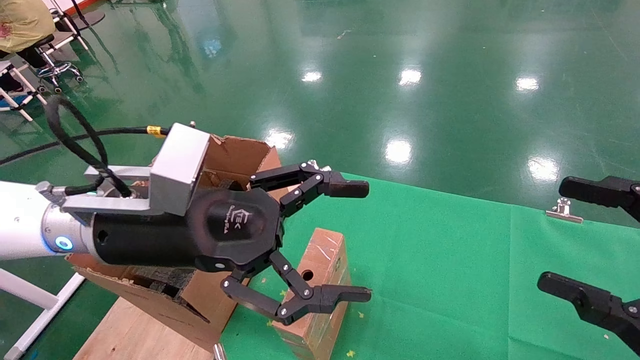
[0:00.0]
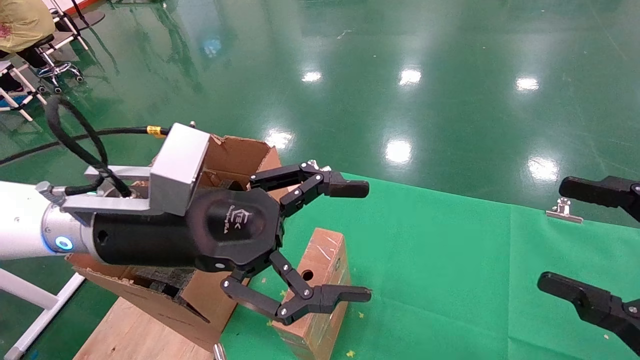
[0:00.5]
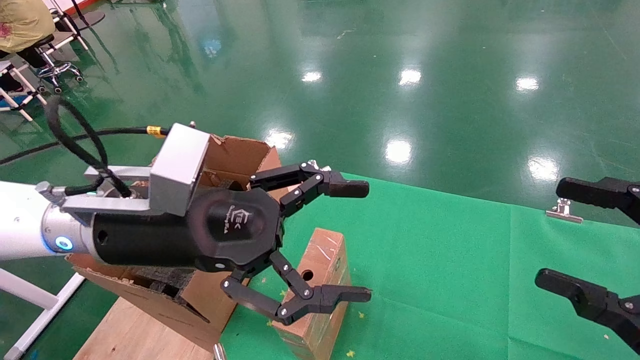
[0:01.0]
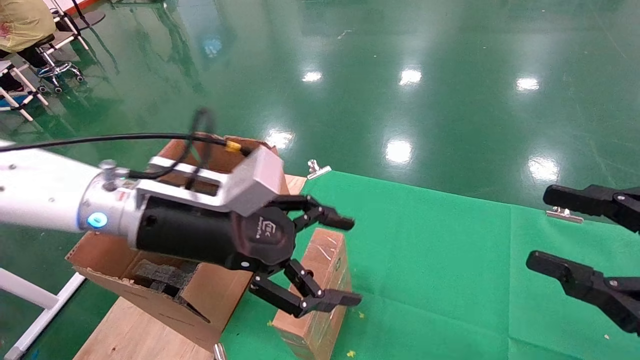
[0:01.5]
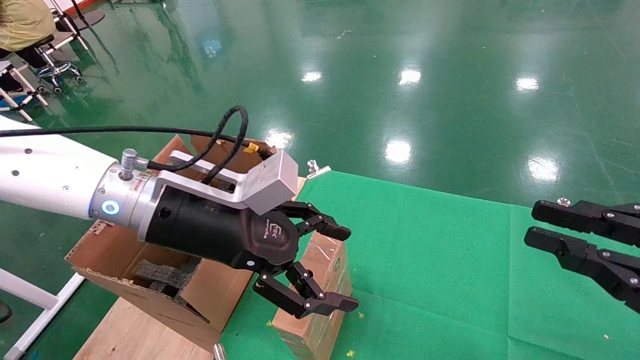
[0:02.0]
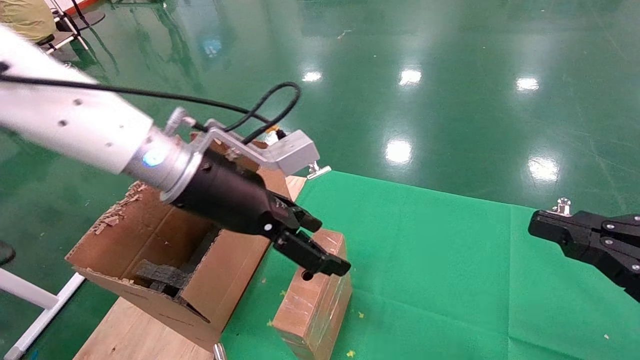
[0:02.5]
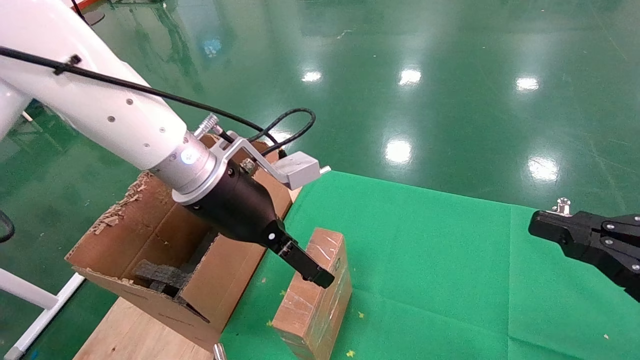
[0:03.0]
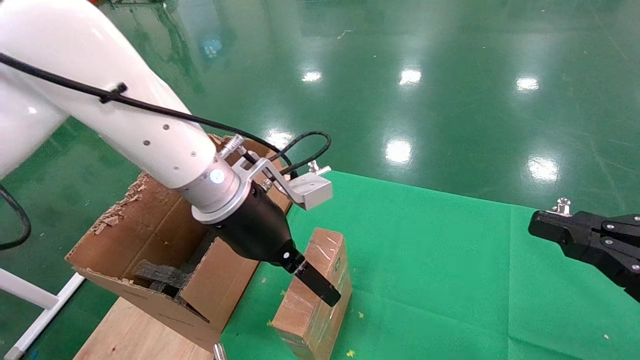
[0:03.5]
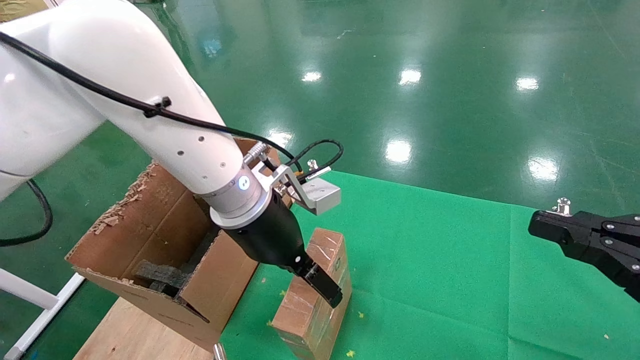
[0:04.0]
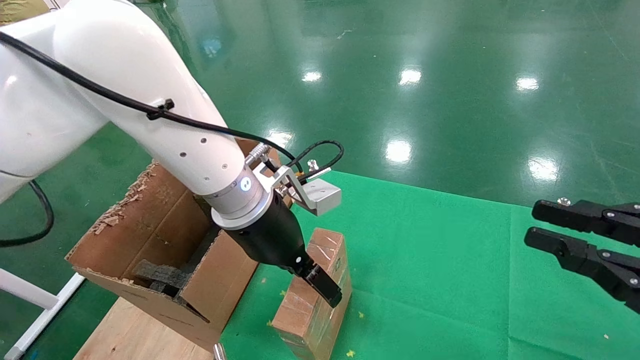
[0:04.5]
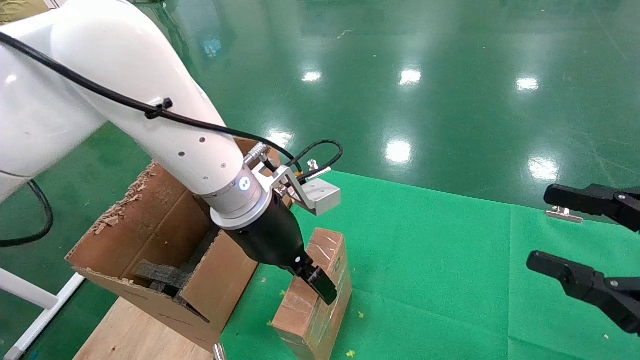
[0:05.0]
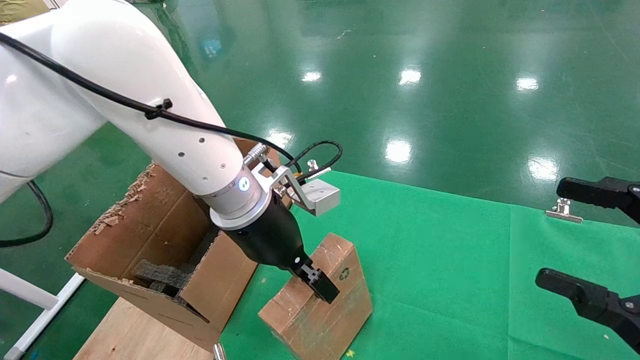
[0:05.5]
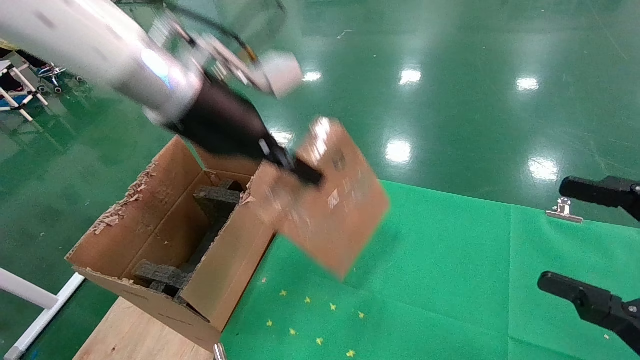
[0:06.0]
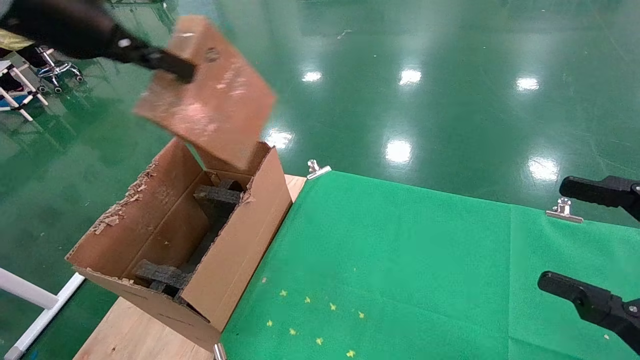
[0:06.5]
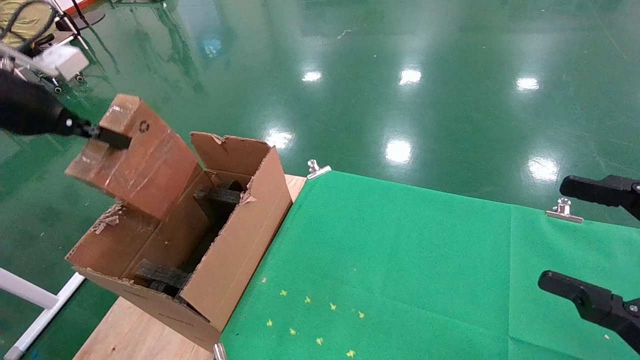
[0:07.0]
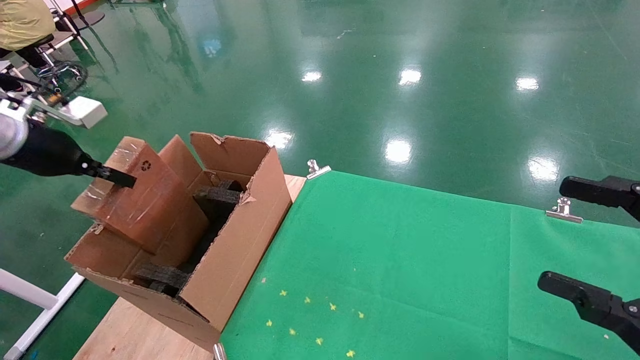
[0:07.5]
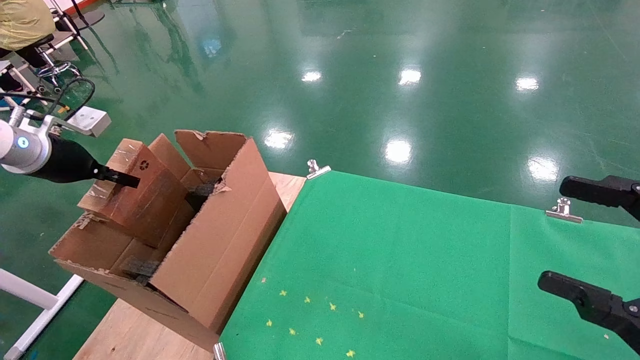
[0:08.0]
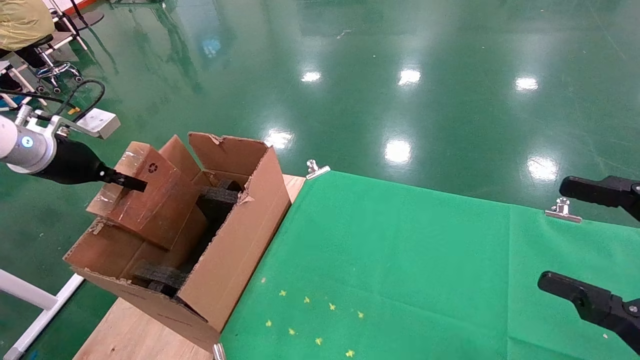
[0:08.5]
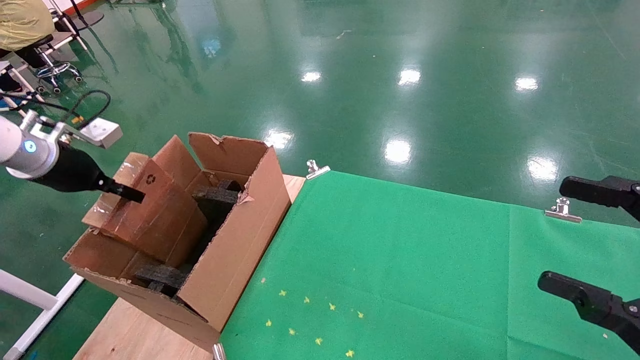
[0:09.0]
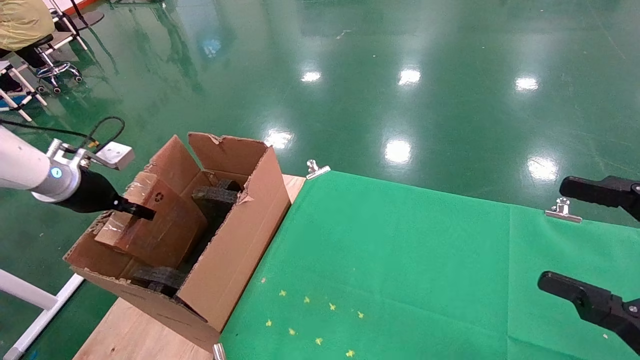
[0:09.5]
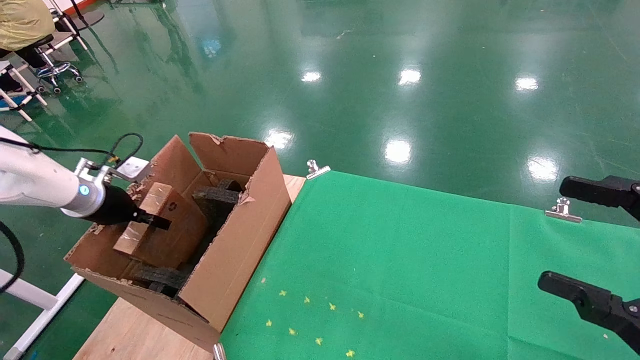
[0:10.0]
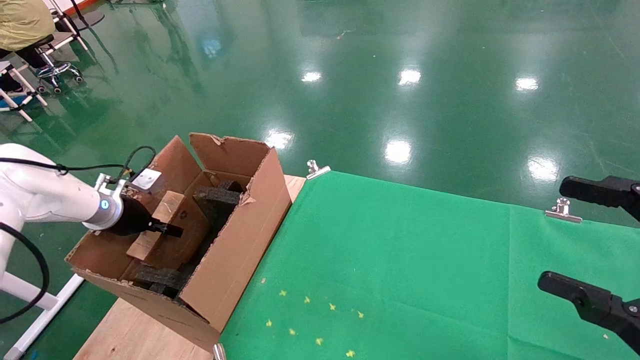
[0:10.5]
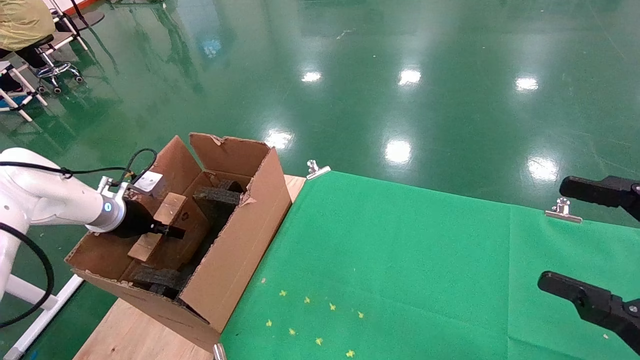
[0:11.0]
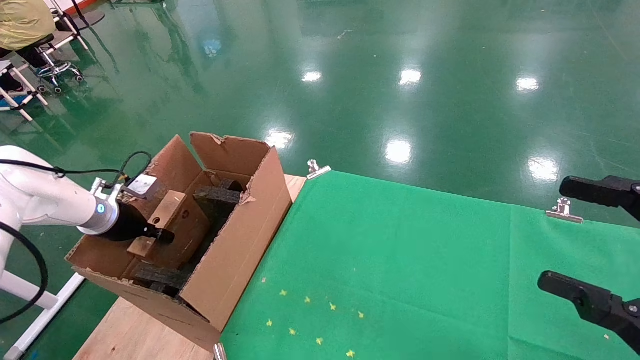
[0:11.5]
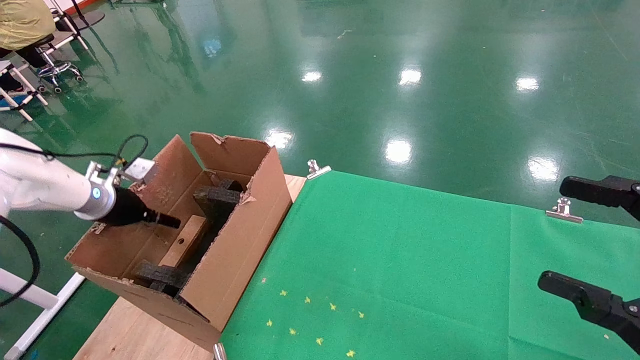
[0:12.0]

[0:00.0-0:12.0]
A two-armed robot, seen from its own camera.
Task of the whole recording: using a robotic arm to pick up a cardboard box and palace it the carton.
Step, 0:01.5 to 0:05.0: Pick up the mouse and the power cord paper box.
0:00.0 to 0:02.0: The right gripper closes its fingers.
0:02.0 to 0:04.0: The left gripper shifts roughly 5 cm to the right.
0:04.0 to 0:06.0: The right gripper opens up. Meanwhile the left gripper heads upward and to the left, covering about 15 cm, and closes.
0:06.0 to 0:08.0: The left gripper travels to the left by some 30 cm.
0:08.0 to 0:10.0: The left gripper goes about 10 cm downward.
0:10.0 to 0:12.0: The left gripper opens its fingers.

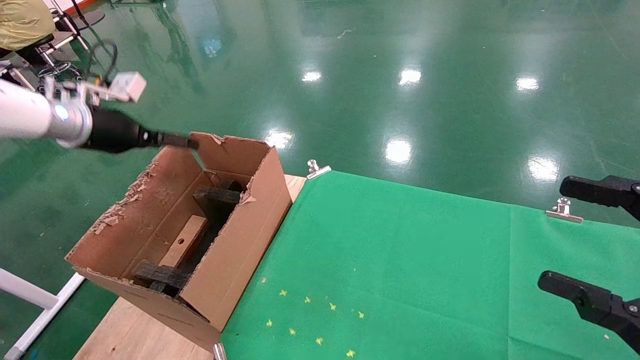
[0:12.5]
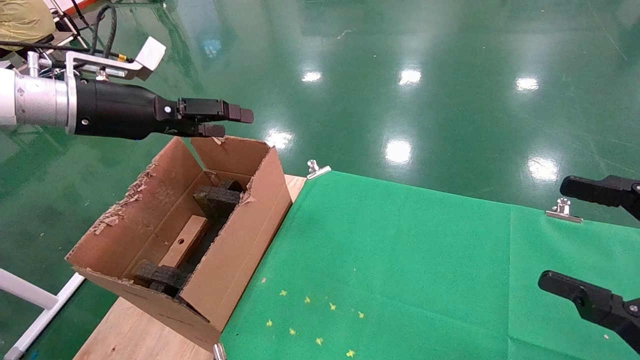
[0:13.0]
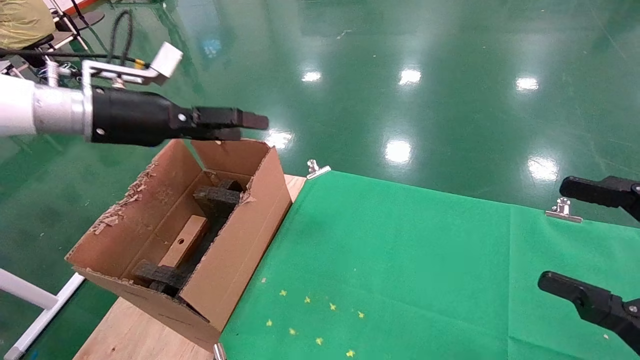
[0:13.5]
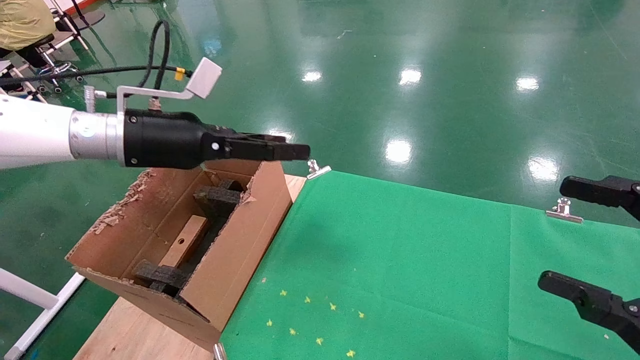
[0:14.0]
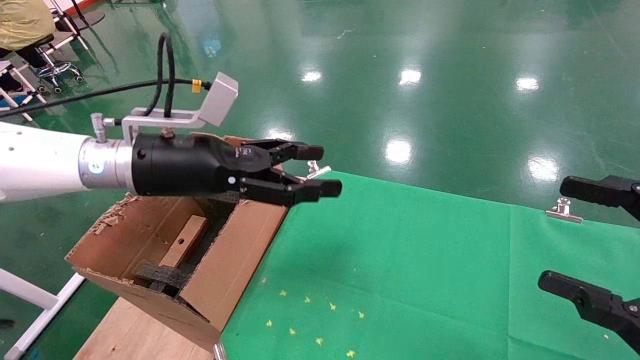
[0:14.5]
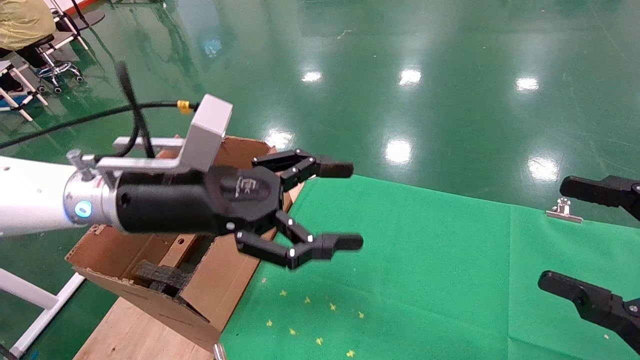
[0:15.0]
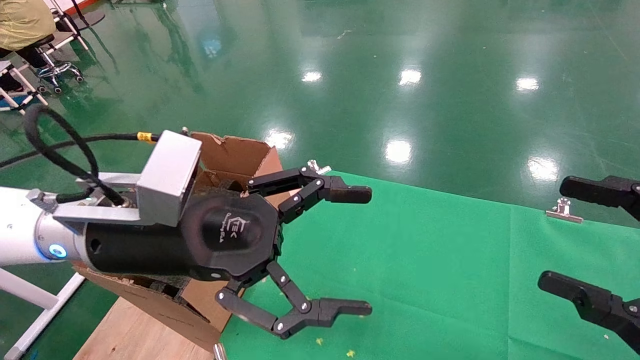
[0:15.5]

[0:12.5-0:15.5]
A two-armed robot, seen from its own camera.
Task of the whole recording: using a robotic arm to pick up a cardboard box and palace it the carton.
0:12.5 to 0:14.0: The left gripper moves to the right, some 15 cm.
0:14.0 to 0:15.5: The left gripper travels backward and to the right by approximately 15 cm.

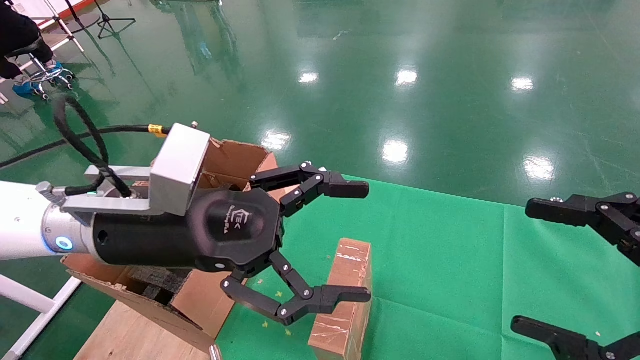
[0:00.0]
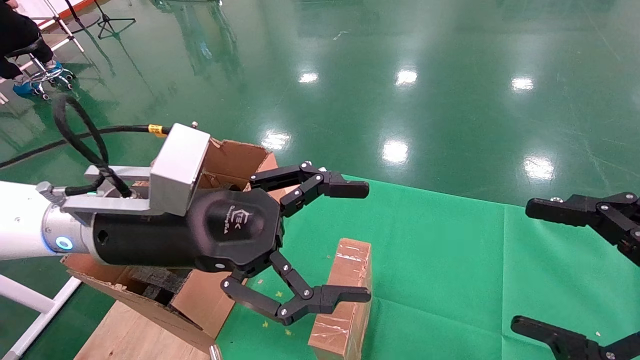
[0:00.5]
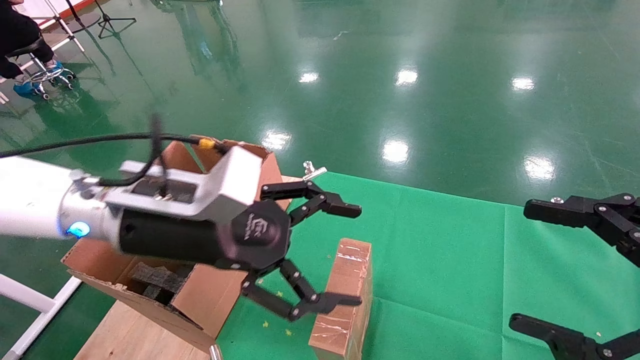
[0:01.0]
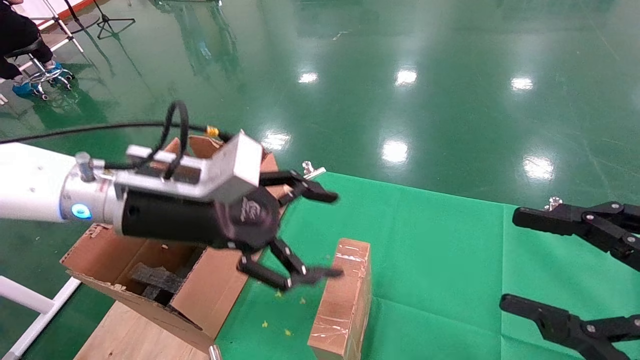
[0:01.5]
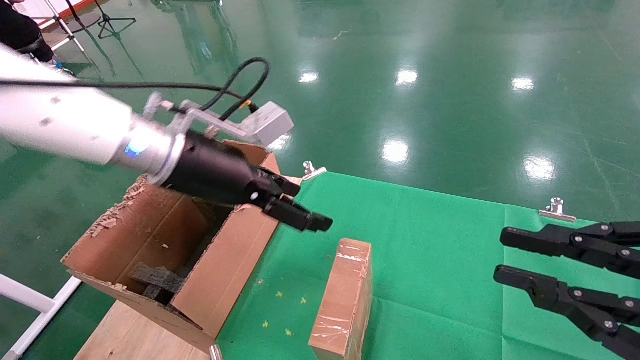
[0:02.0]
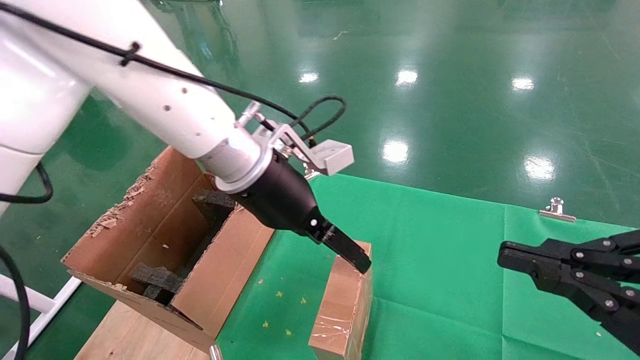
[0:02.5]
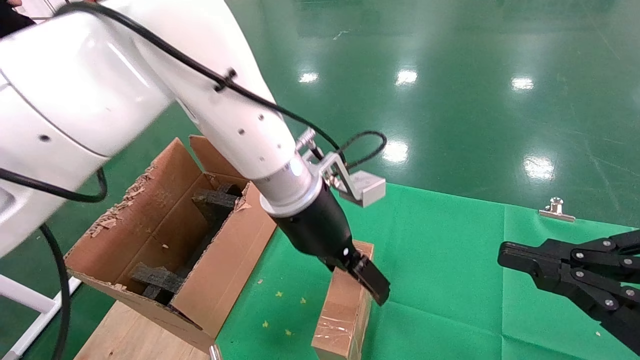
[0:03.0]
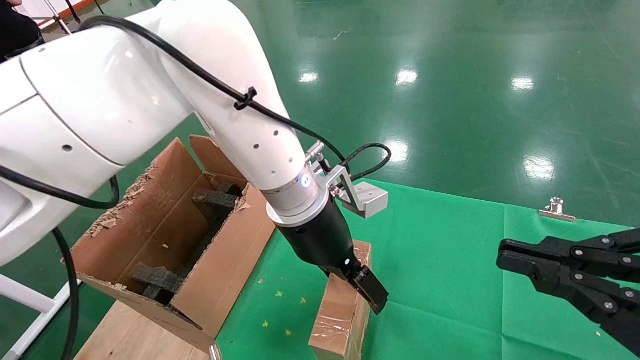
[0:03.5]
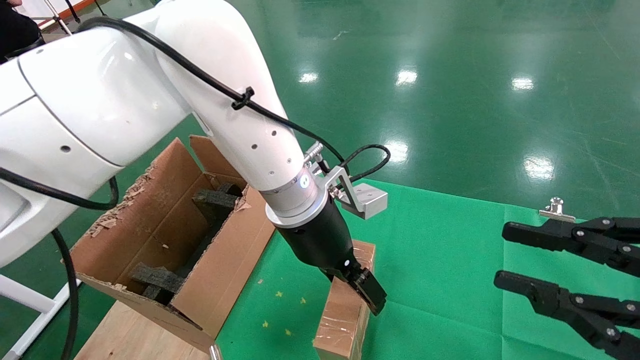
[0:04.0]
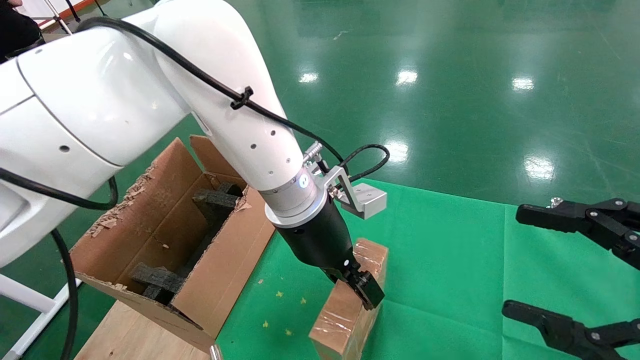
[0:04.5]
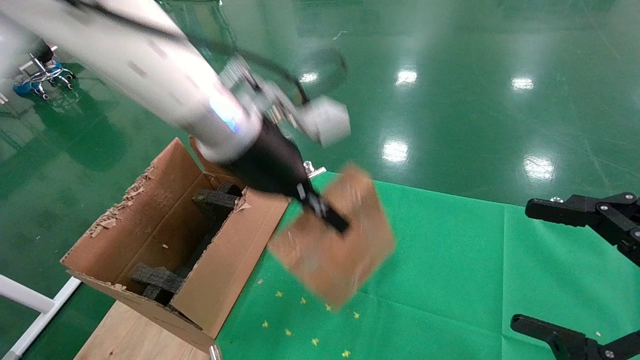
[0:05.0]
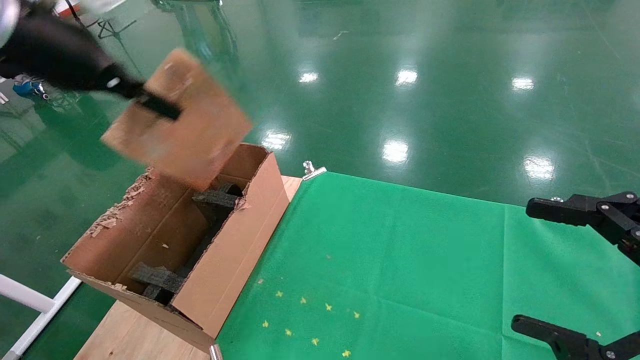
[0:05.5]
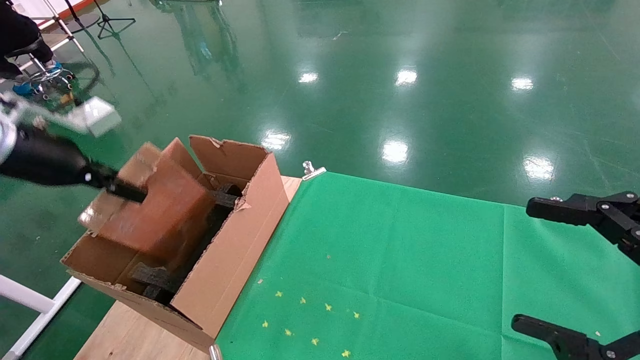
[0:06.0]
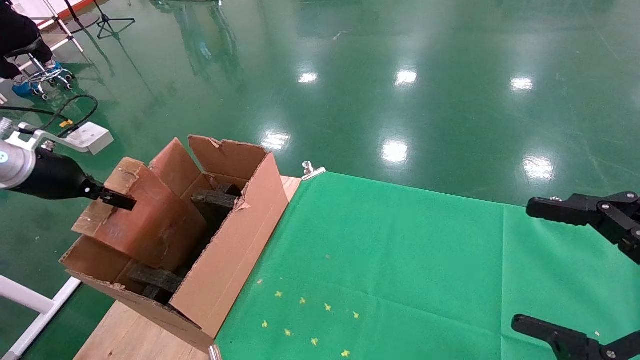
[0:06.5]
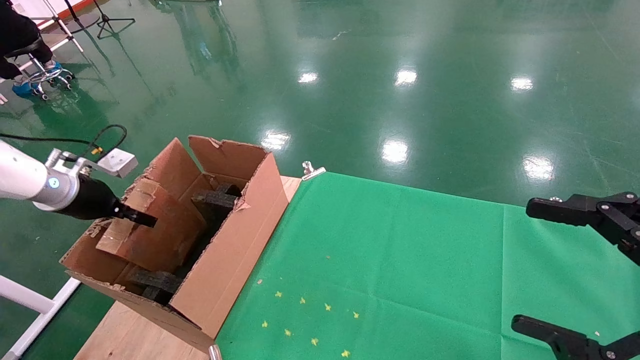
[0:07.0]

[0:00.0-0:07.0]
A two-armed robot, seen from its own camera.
Task of the whole recording: using a robotic arm to pick up a cardboard box and palace it the carton.
Step, 0:01.0 to 0:04.5: Pick up the mouse and the power cord paper box.
0:00.0 to 0:02.0: The left gripper is displaced forward by roughly 10 cm. The right gripper closes up.
0:02.0 to 0:03.5: The left gripper shifts roughly 15 cm to the right.
0:03.5 to 0:05.0: The right gripper opens. Meanwhile the left gripper heads upward and to the left, covering about 15 cm, and closes its fingers.
0:05.0 to 0:07.0: The left gripper heads to the left and downward, covering about 40 cm.
